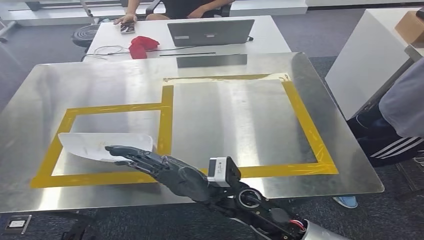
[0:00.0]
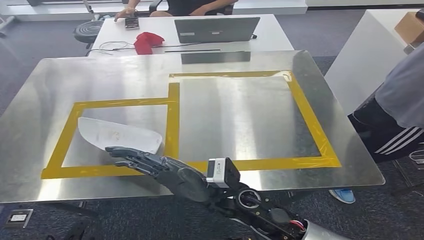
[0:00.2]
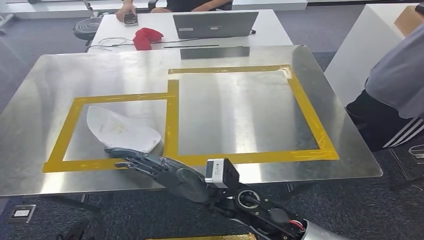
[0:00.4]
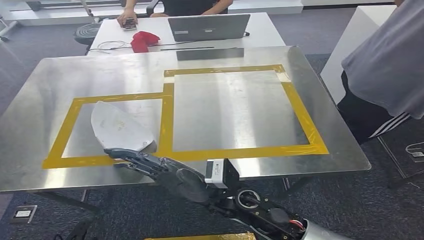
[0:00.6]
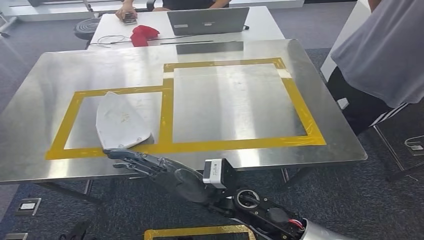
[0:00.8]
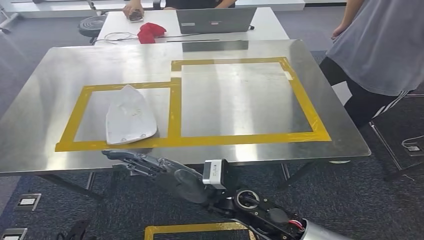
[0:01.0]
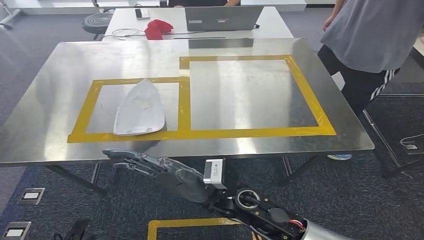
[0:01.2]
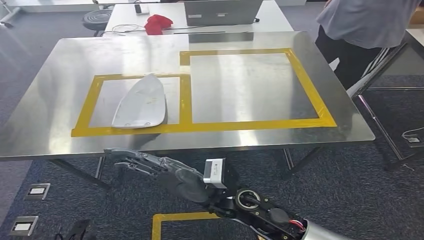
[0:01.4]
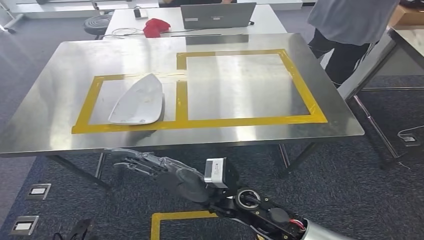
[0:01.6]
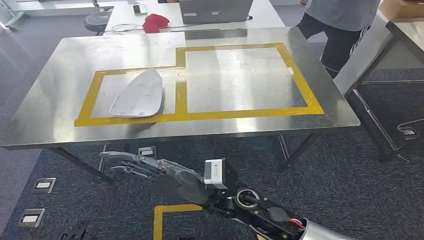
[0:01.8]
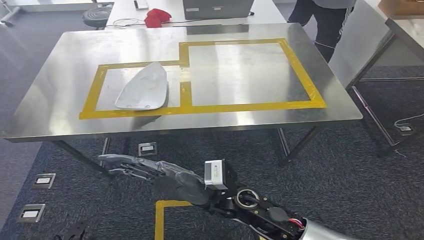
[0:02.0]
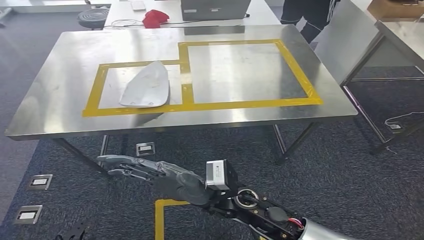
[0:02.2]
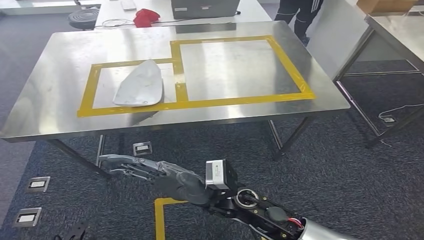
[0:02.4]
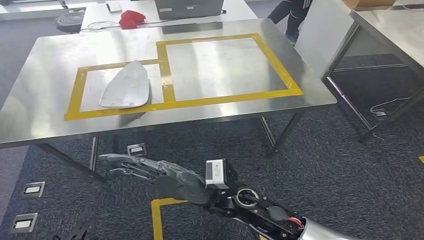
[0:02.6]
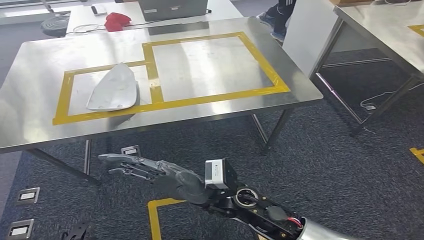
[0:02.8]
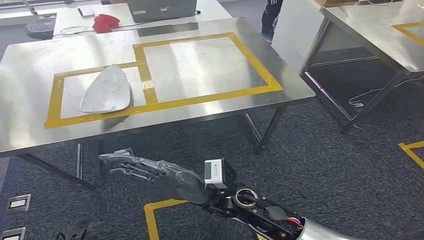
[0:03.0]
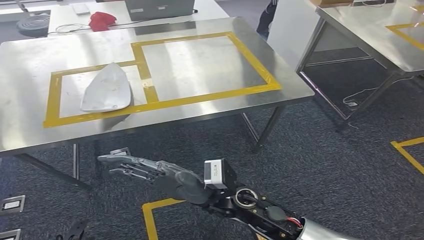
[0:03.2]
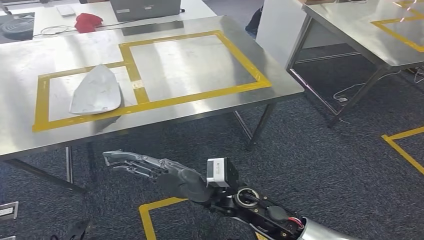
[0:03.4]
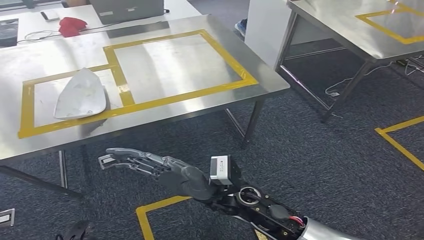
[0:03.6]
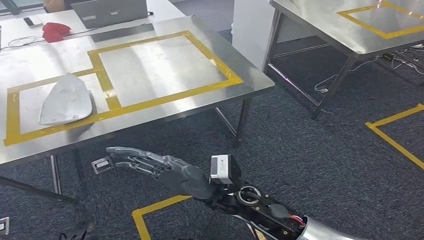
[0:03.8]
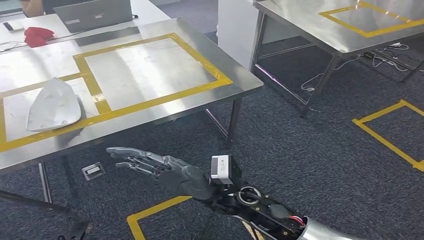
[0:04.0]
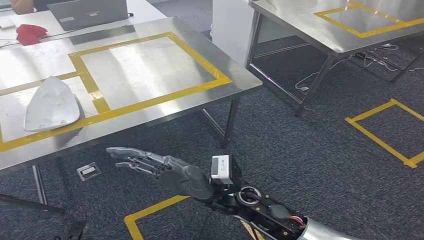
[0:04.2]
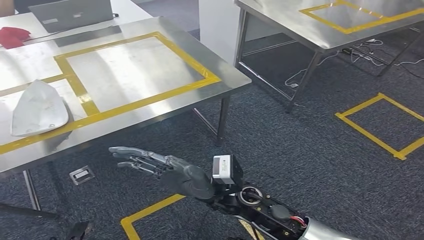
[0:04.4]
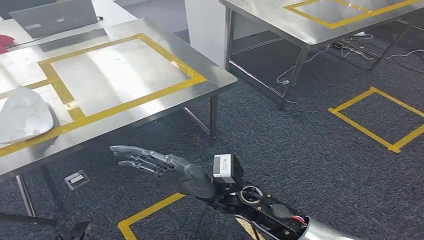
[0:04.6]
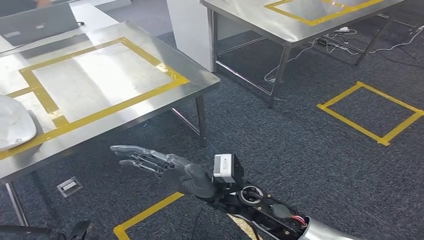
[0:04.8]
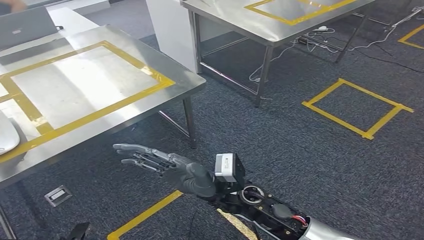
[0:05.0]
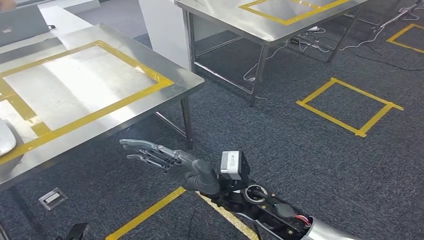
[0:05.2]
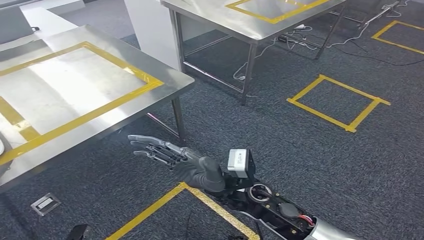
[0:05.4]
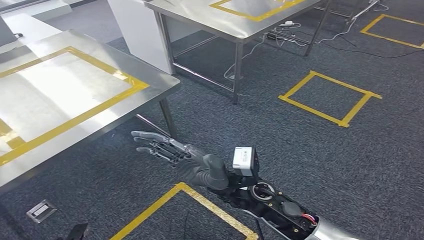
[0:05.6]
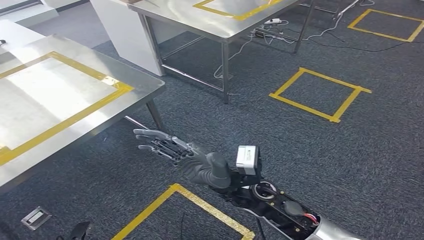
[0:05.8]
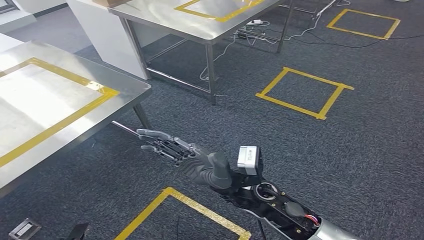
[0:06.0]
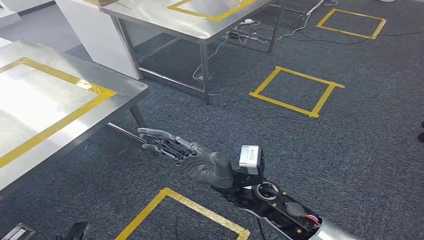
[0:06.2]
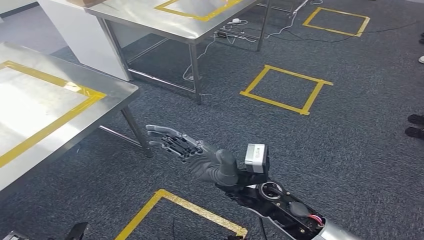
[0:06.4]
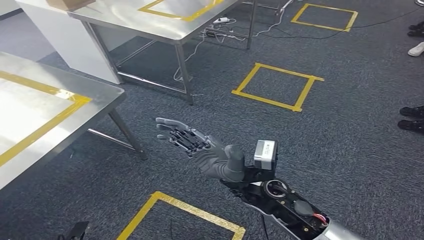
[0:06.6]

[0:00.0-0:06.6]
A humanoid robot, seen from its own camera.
Step, 0:00.0 to 0:06.6: Move to the initial position of the workbench.
